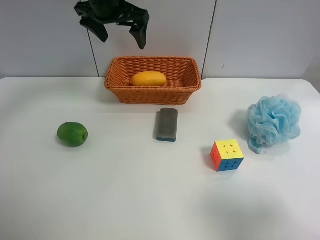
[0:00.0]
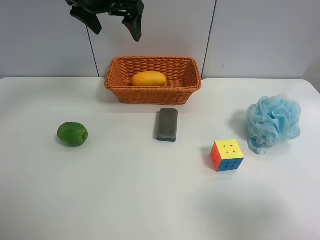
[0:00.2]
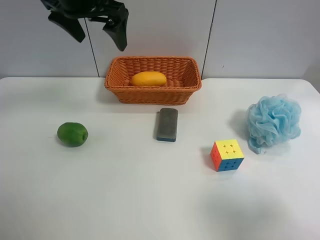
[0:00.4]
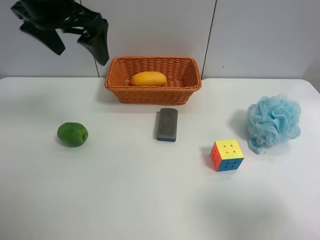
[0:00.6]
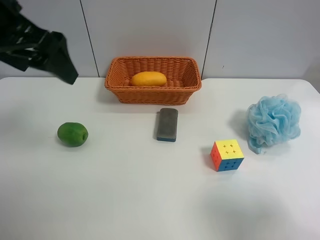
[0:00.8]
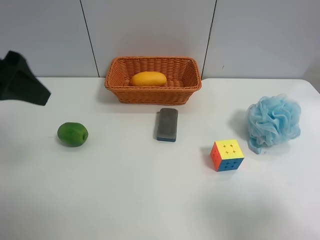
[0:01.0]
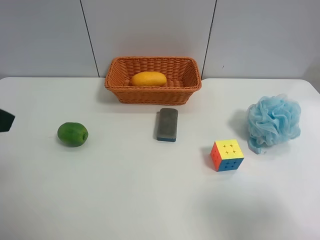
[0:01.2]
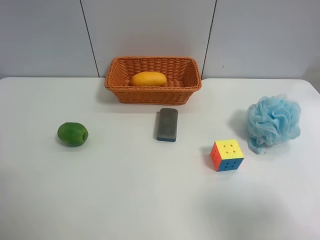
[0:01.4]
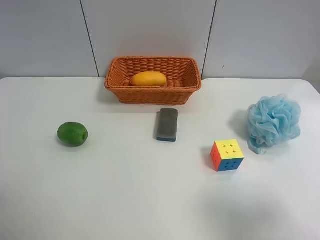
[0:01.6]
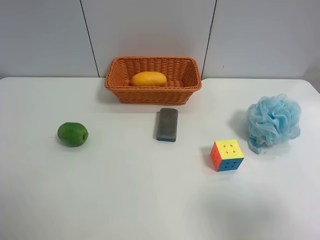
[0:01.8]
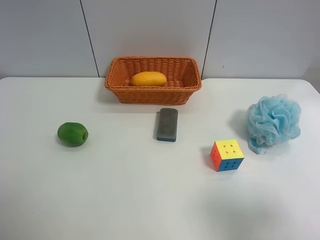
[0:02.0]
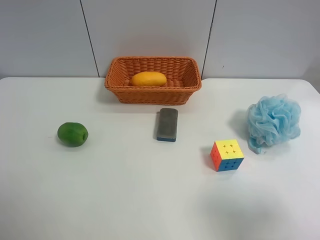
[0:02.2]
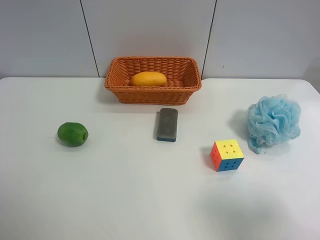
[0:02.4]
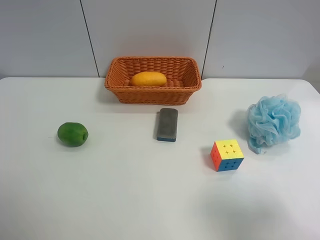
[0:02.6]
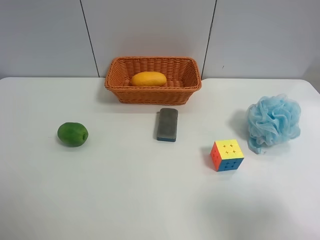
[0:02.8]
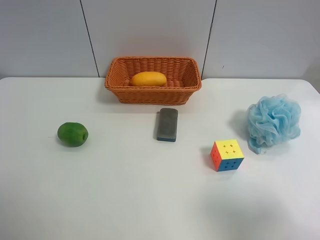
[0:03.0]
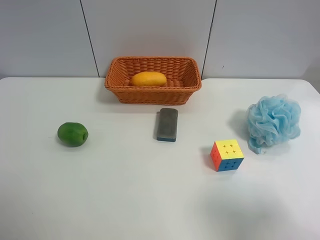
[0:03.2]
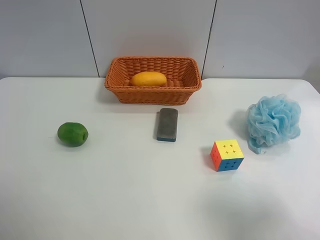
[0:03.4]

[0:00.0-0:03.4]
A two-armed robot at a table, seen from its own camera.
Task of the whole recording: use the left gripper to grab items from the table and place them in the basket.
0:00.0 to 0:01.6: The left gripper shifts some 40 cm backward and to the left.
